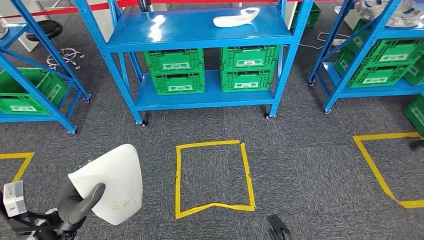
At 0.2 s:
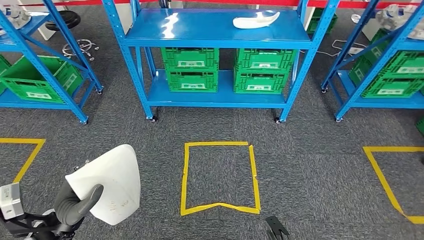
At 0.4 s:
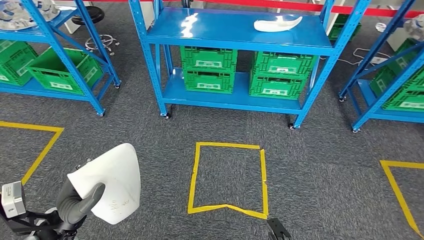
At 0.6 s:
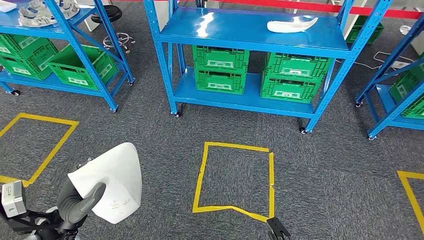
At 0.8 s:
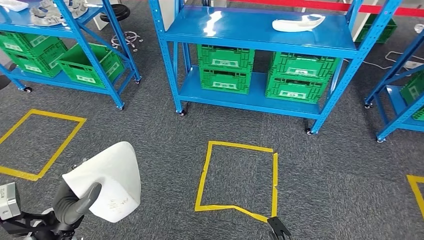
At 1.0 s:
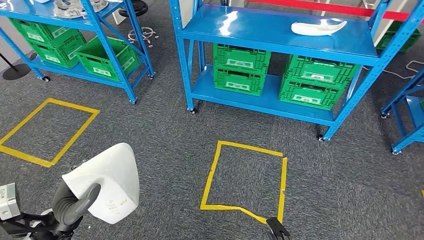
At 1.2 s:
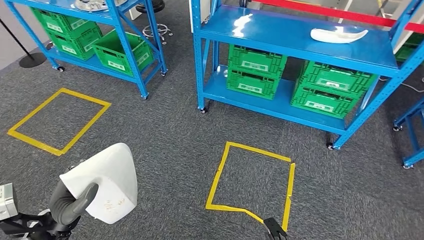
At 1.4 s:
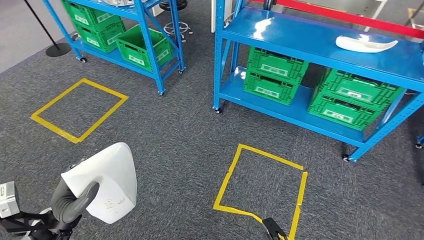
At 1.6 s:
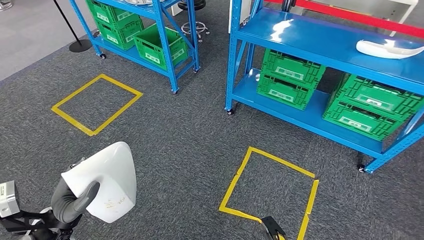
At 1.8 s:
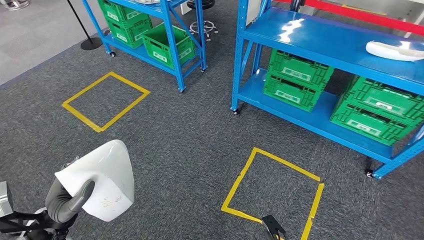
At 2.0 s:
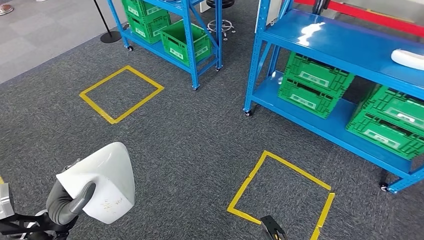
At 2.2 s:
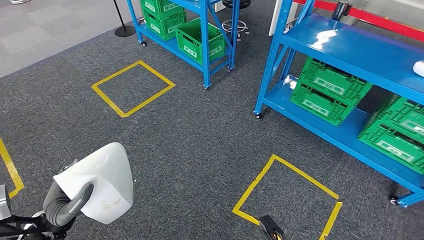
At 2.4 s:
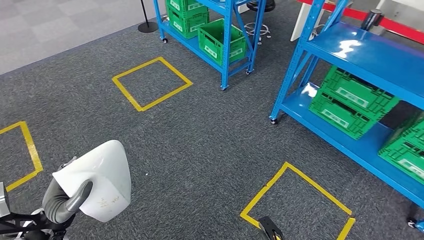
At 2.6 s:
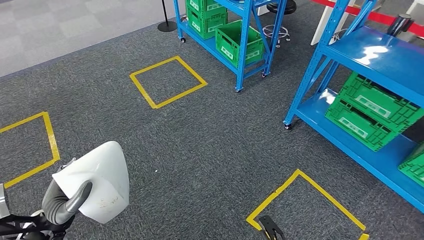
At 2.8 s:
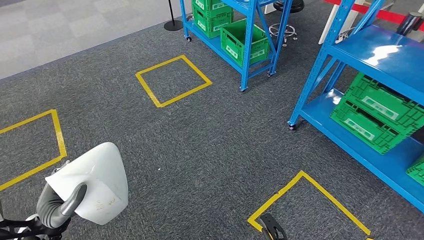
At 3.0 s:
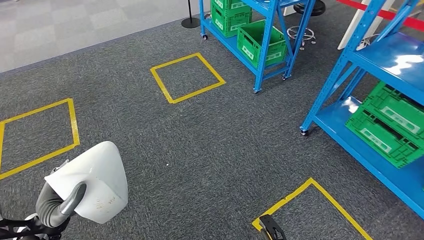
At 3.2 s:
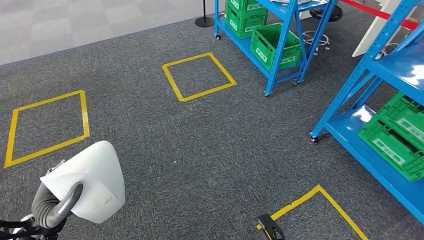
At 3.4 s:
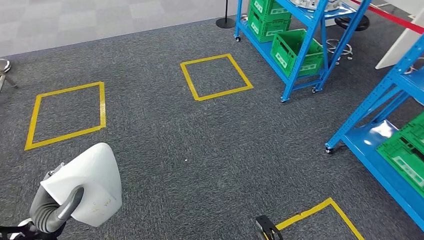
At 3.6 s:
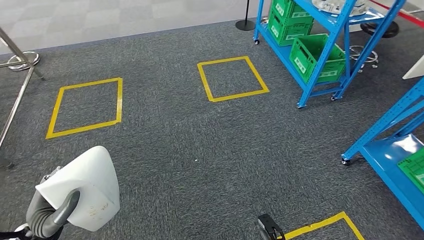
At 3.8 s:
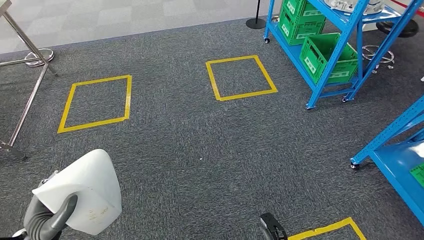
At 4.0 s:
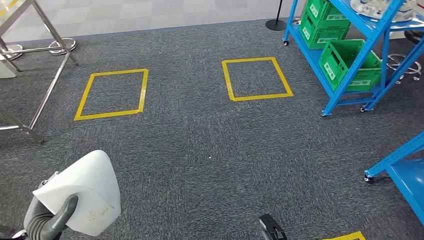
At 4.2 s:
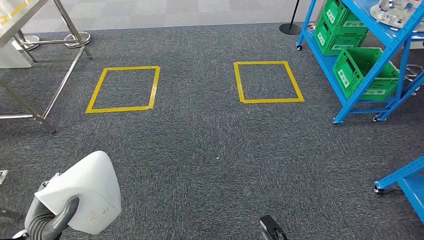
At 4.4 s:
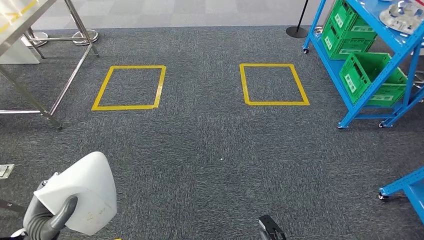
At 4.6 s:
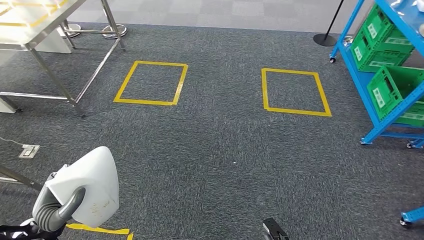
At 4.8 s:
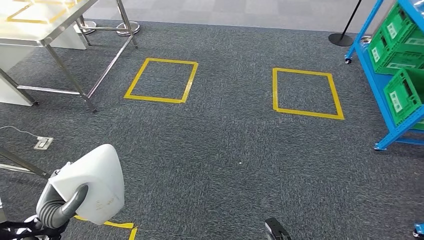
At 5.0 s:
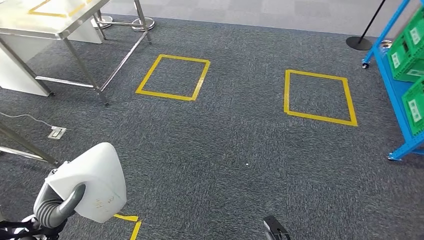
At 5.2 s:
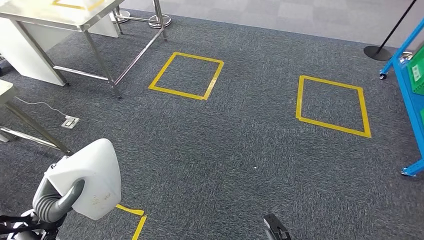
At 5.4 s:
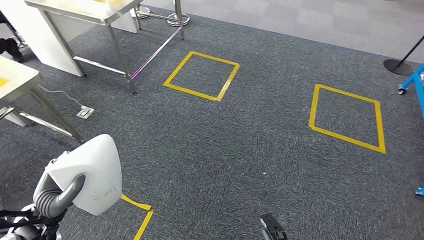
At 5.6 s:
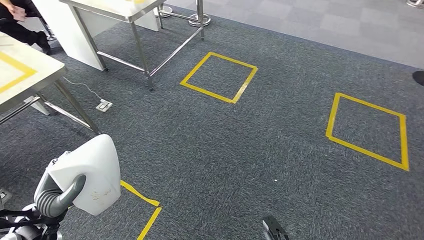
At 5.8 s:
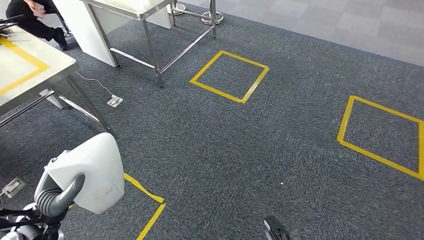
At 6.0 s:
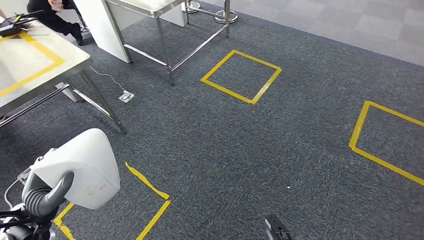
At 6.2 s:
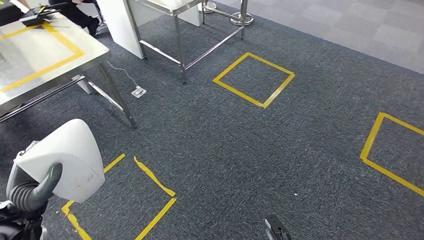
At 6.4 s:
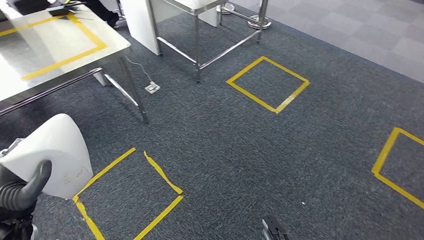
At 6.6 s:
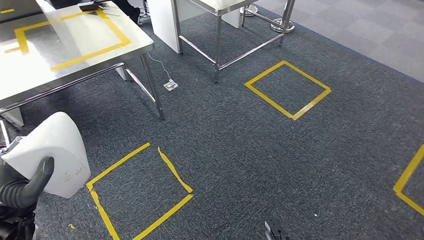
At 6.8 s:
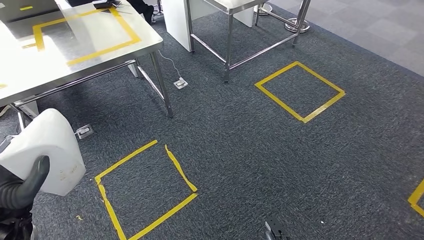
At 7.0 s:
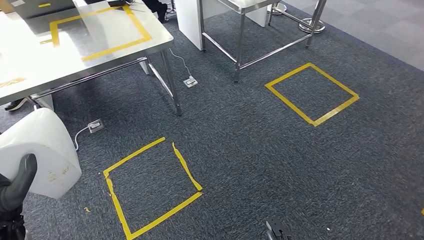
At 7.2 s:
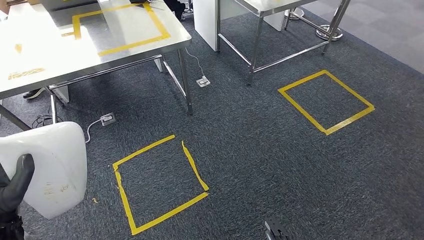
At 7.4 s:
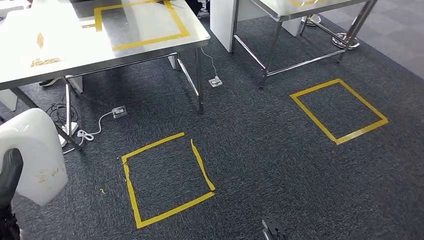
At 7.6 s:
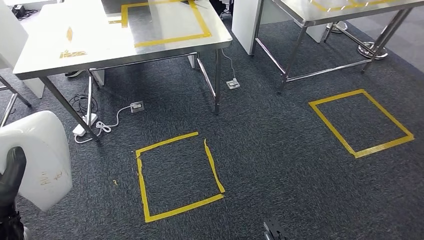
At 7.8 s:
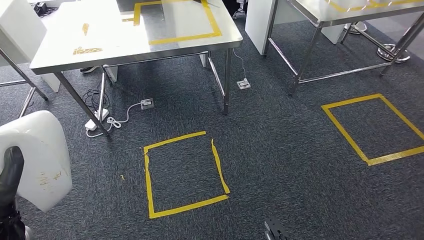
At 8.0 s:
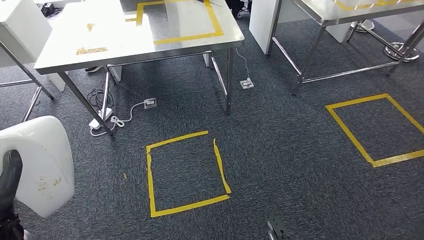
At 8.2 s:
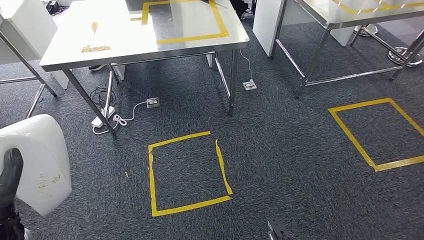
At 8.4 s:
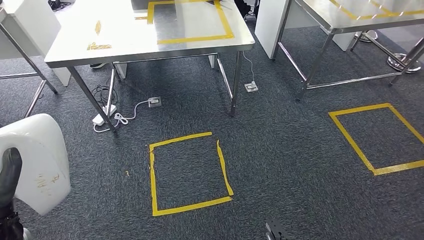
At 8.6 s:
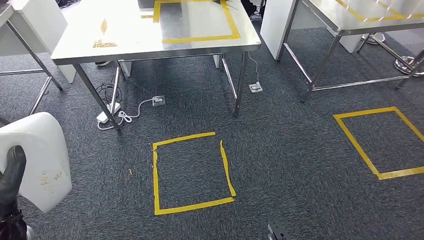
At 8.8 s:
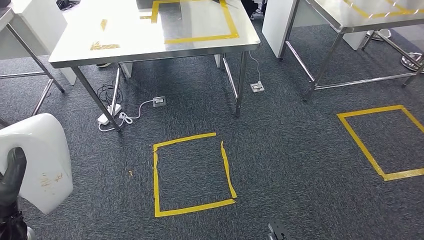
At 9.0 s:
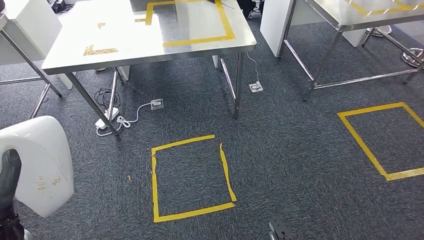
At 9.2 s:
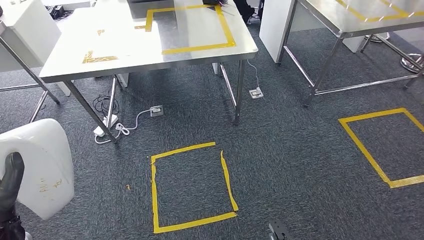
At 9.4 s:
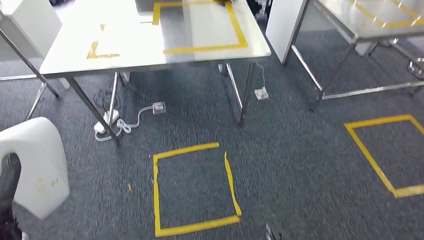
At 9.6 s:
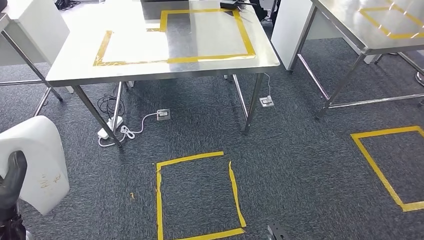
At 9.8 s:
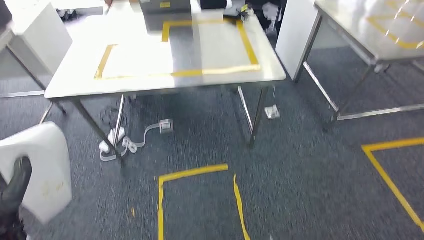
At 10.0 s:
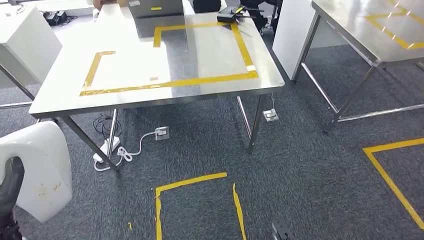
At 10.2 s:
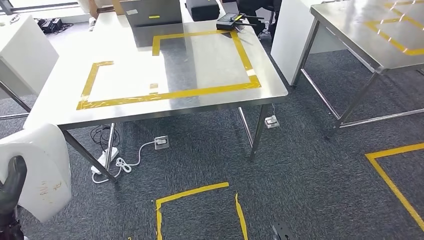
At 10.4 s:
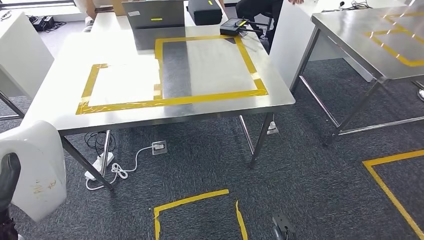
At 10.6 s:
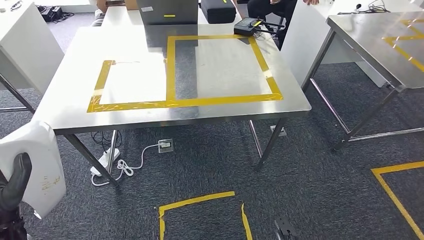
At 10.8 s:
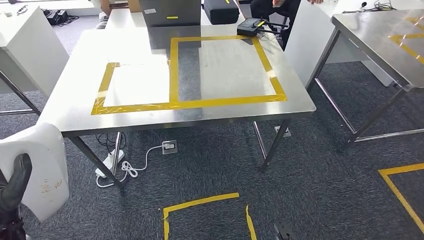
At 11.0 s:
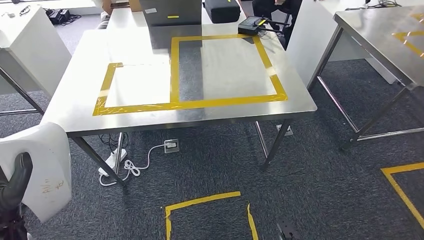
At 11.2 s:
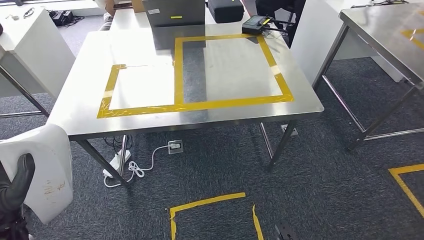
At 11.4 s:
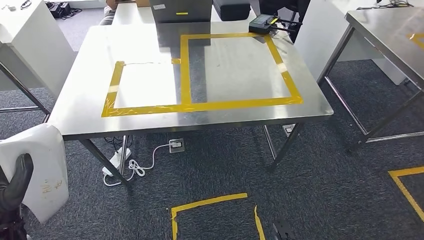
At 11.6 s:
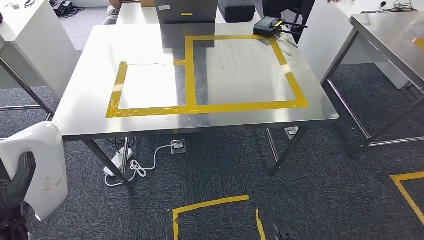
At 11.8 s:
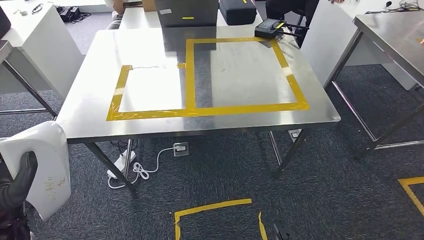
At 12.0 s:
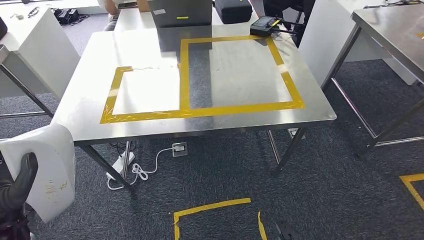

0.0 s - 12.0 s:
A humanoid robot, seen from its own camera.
Step, 0.0 s - 8.0 s: Move the small parts to the workbench.

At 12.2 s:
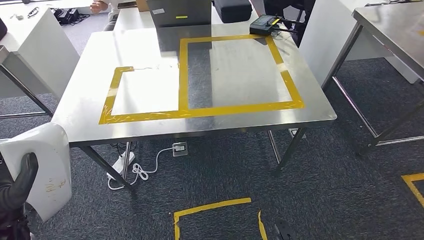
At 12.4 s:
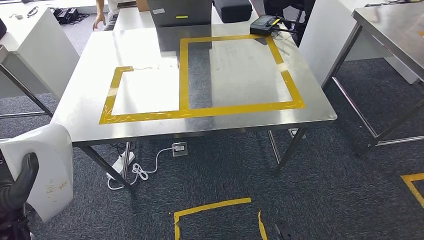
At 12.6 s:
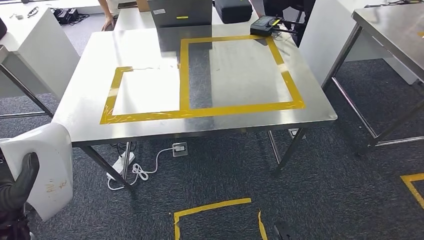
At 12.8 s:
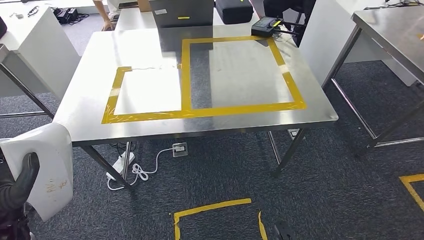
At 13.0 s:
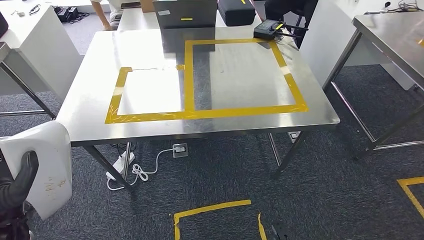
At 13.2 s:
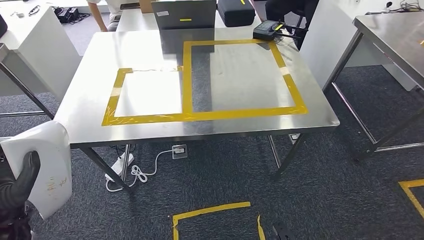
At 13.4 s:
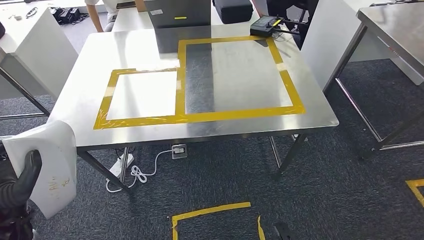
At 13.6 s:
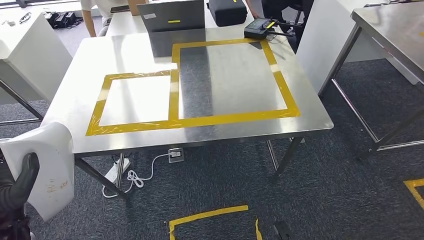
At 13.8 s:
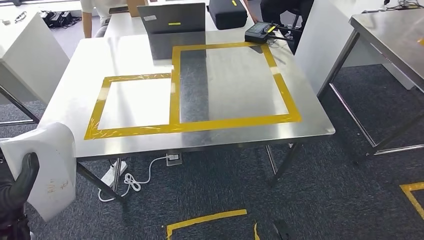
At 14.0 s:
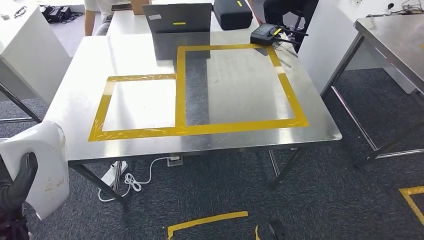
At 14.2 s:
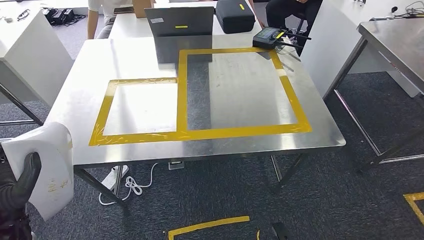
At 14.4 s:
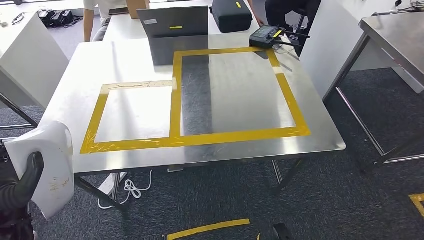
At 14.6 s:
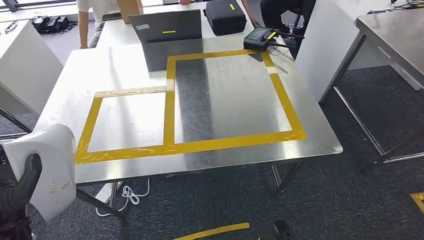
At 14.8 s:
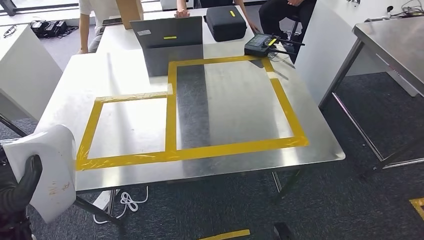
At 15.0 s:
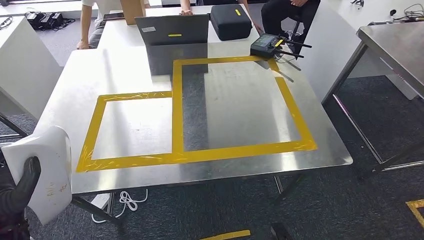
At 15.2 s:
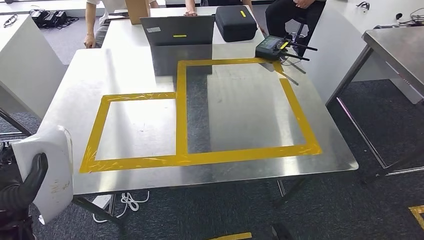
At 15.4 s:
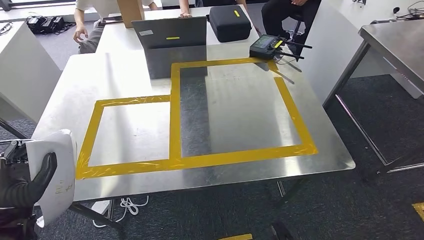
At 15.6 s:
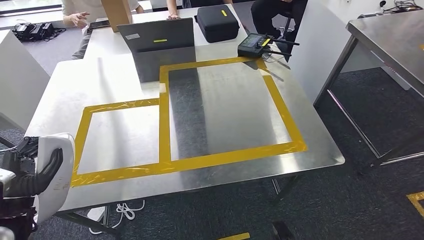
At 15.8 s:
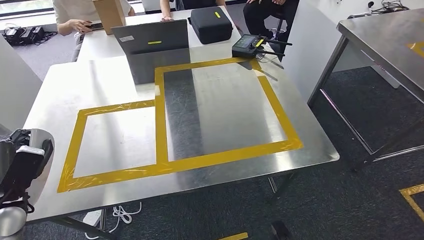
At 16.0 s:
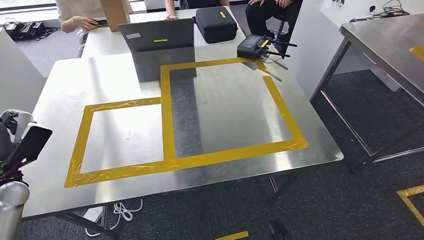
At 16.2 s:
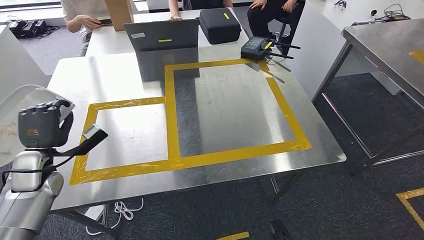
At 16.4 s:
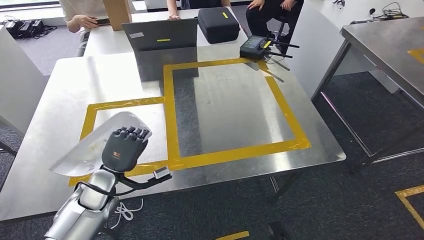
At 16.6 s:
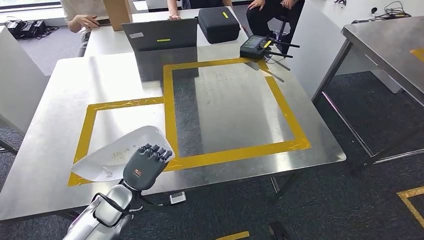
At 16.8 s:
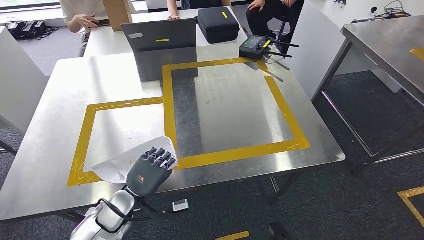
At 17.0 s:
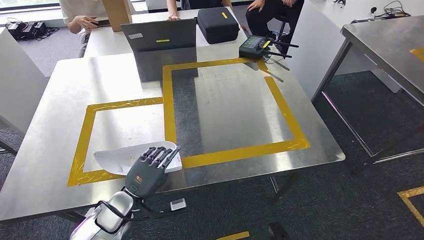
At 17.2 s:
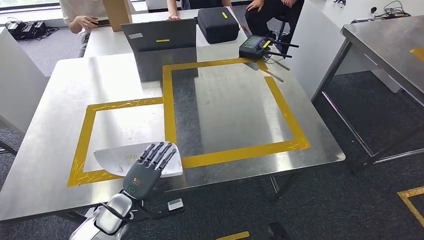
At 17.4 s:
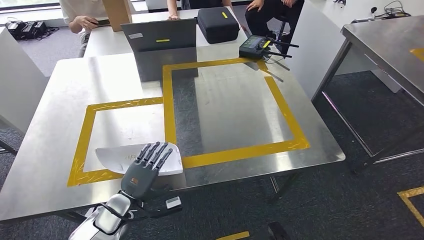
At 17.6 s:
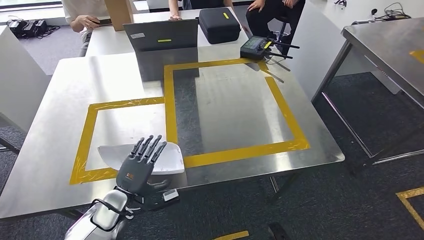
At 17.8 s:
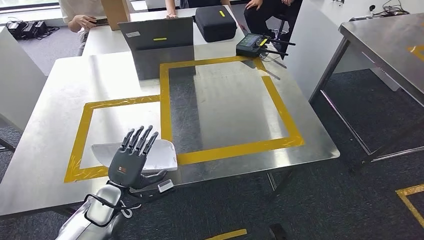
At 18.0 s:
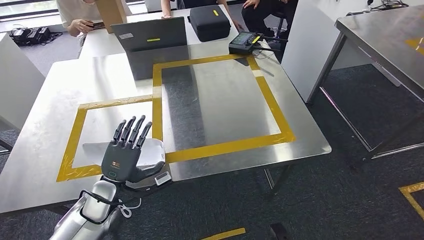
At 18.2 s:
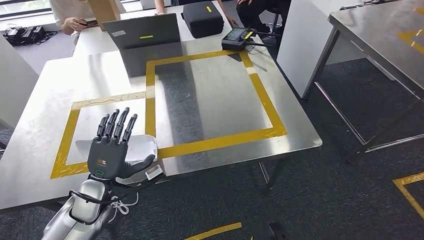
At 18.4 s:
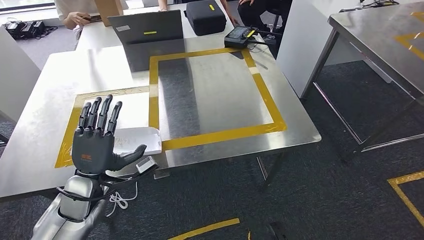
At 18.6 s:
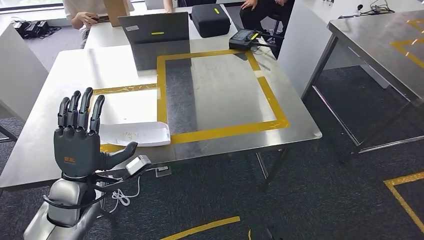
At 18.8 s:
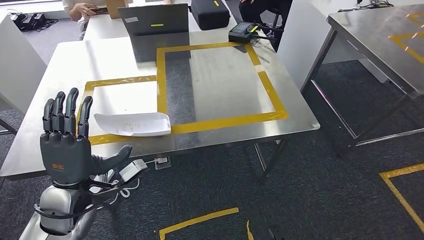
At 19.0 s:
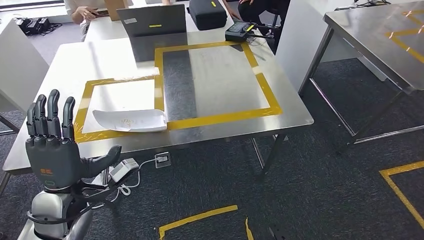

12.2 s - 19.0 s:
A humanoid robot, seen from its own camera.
Step, 12.2 s - 18.4 s: Insert the small parts into the corresponding holes on the workbench.
16.2 s - 17.6 s: The left hand shifts approximately 20 cm to the right, downward and backward.
